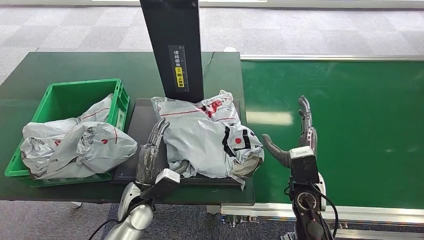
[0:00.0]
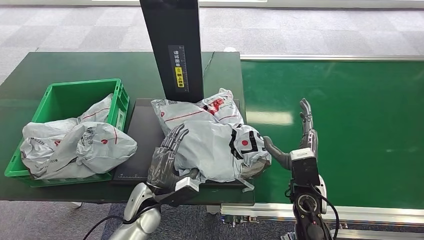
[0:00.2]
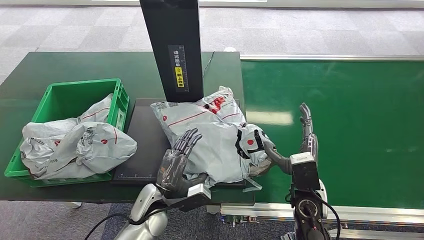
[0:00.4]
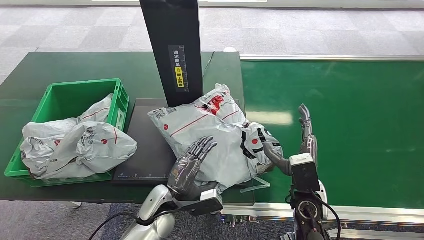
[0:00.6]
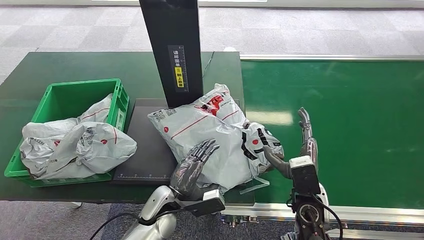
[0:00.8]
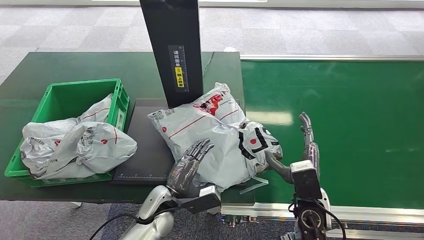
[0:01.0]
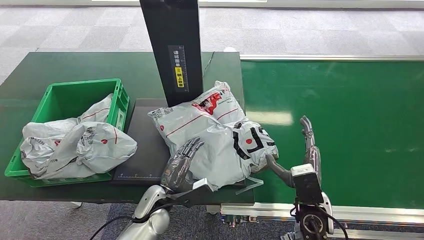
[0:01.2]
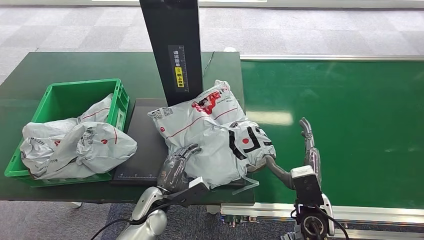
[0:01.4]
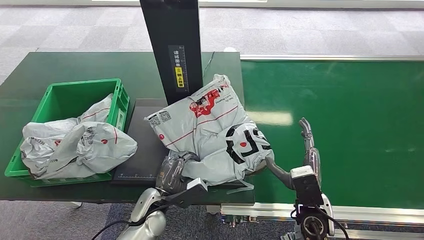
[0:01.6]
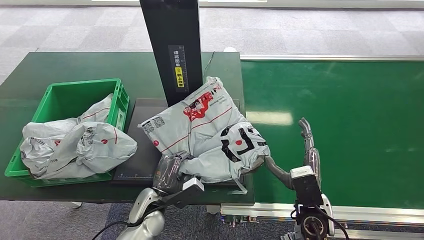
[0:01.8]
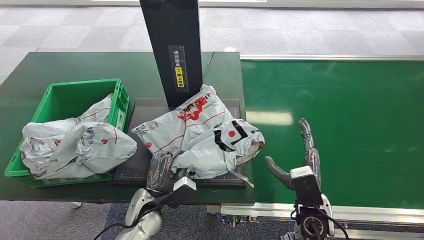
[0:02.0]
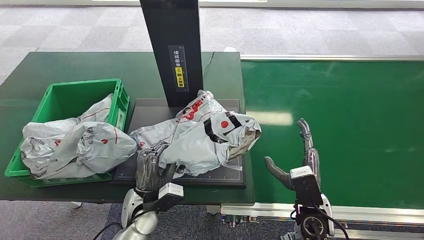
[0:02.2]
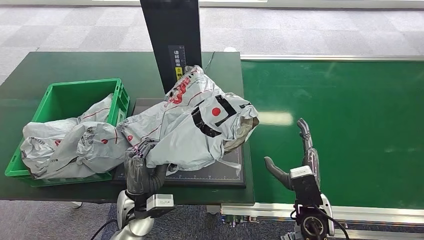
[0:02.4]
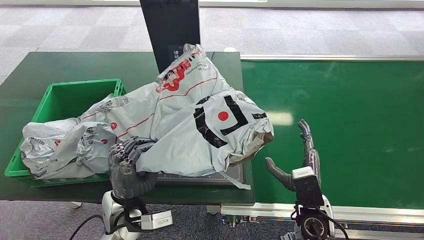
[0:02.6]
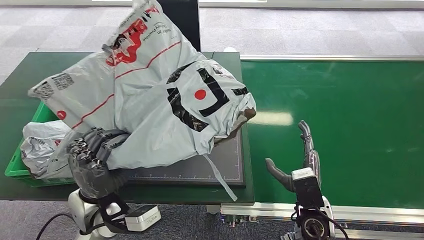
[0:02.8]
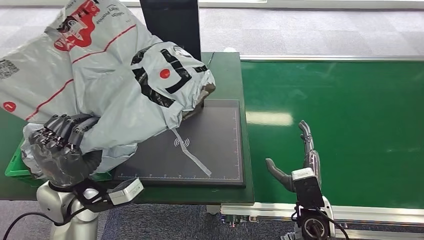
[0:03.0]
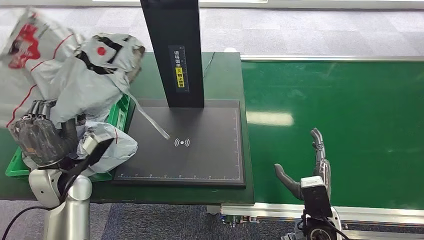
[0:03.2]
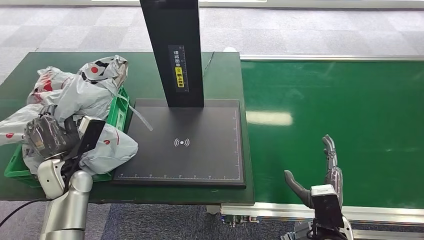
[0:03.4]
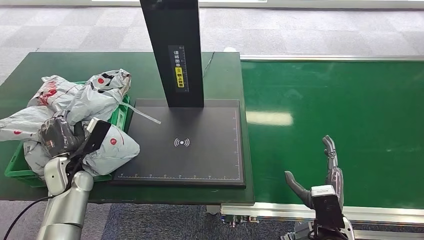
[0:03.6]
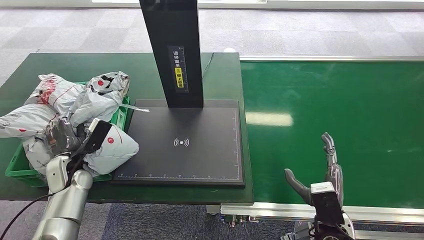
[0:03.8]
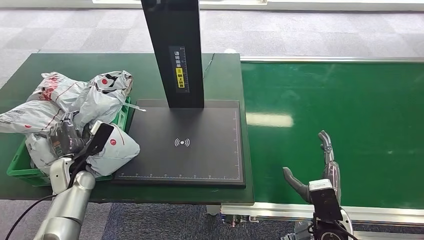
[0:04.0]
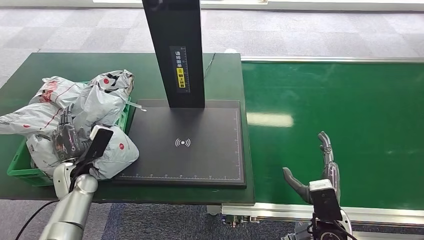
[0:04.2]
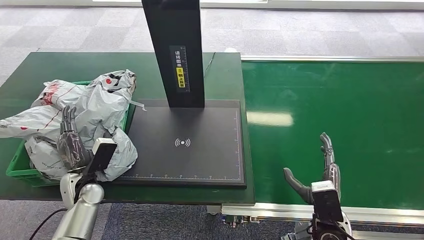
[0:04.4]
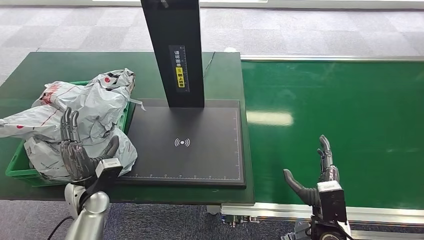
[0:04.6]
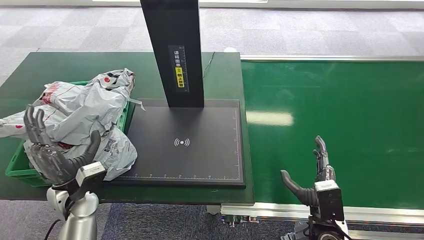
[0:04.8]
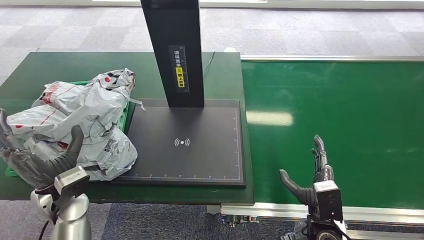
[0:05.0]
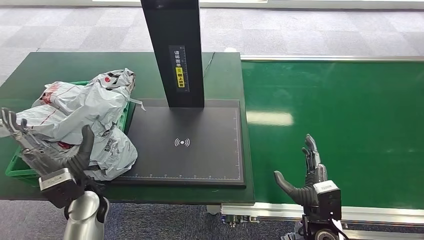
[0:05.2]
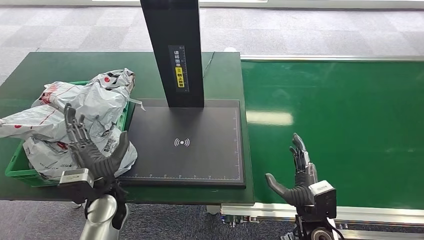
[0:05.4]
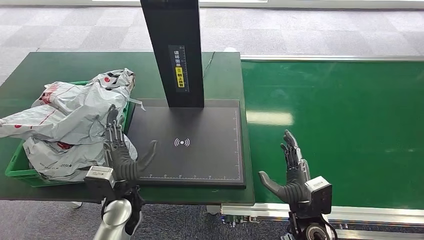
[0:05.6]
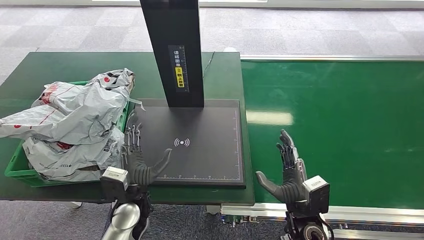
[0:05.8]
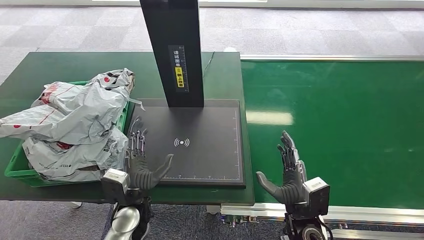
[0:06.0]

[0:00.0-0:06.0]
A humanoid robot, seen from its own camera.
Step, 0:00.0 to 0:00.2: Place the package onto the inbound machine.
0:00.0 to 0:01.6: The right hand travels backward by approximately 5 cm.
0:04.4 to 0:06.0: The left hand shifts roughly 15 cm to the right; the right hand travels to the left by some 5 cm.
